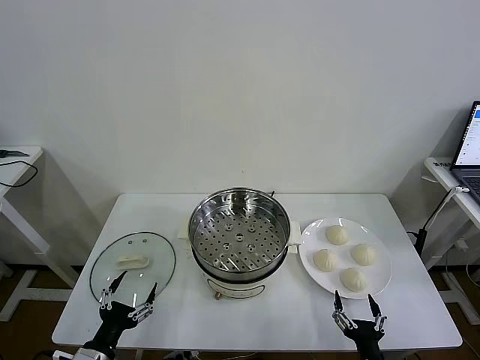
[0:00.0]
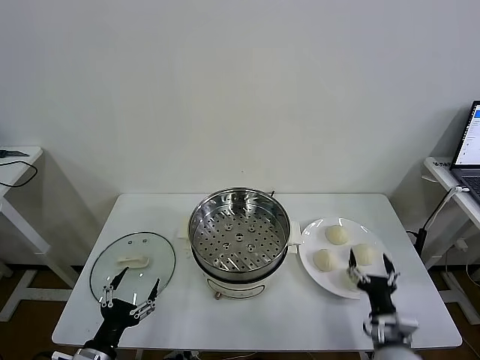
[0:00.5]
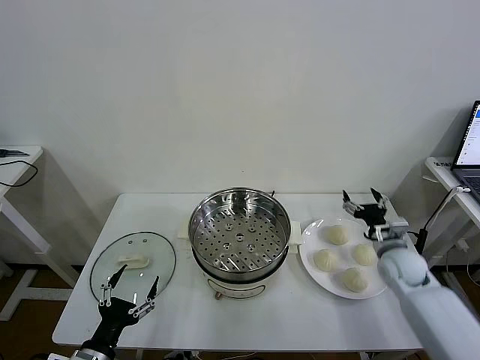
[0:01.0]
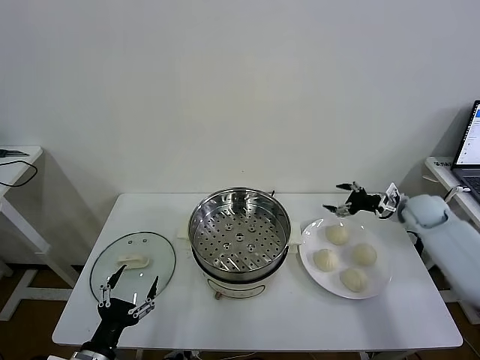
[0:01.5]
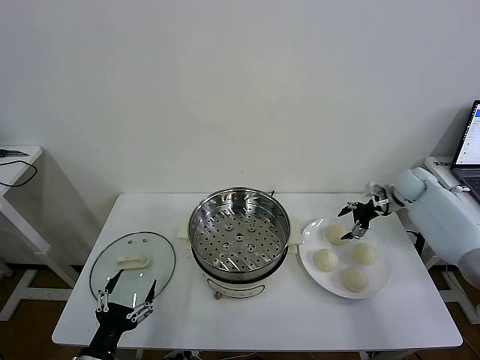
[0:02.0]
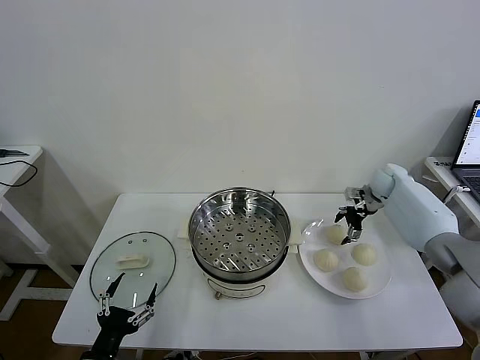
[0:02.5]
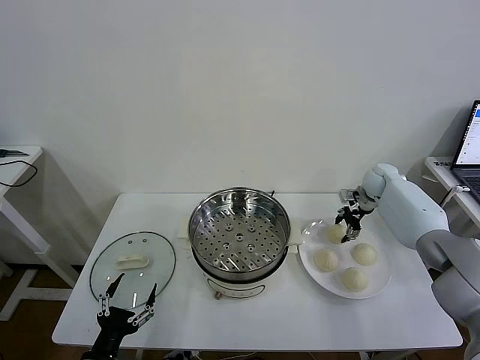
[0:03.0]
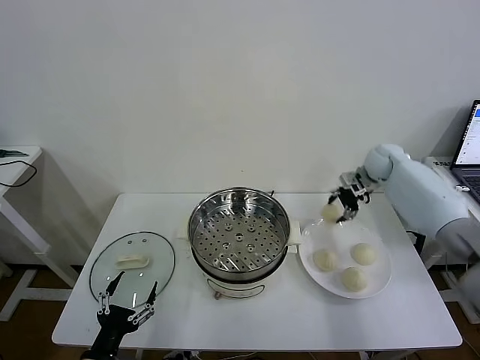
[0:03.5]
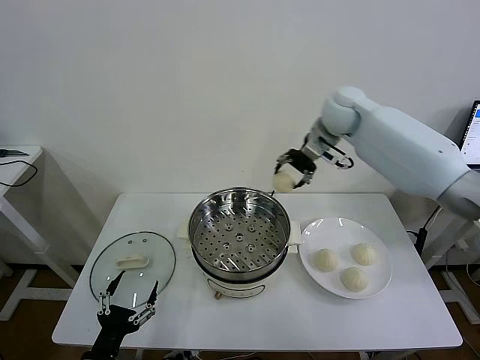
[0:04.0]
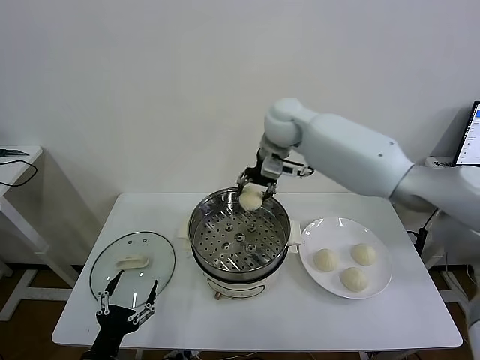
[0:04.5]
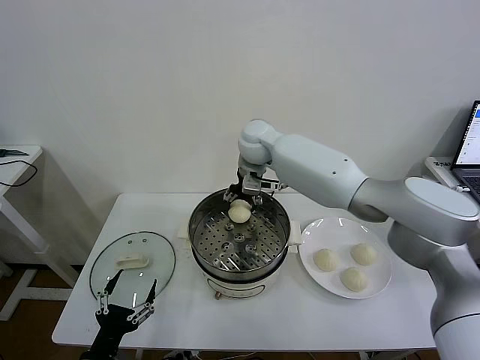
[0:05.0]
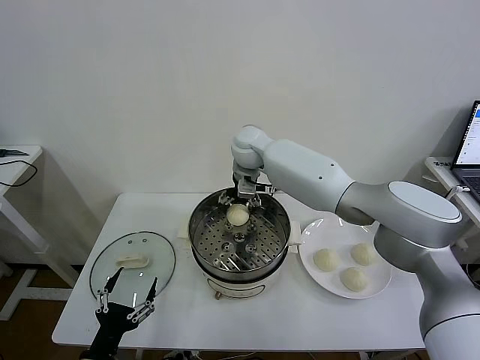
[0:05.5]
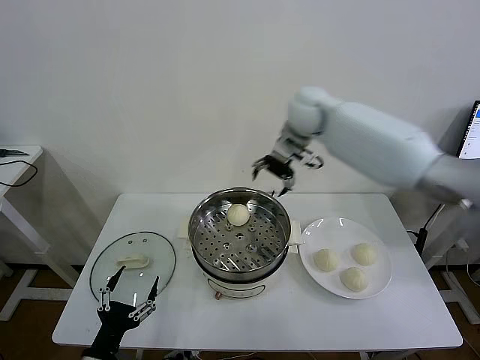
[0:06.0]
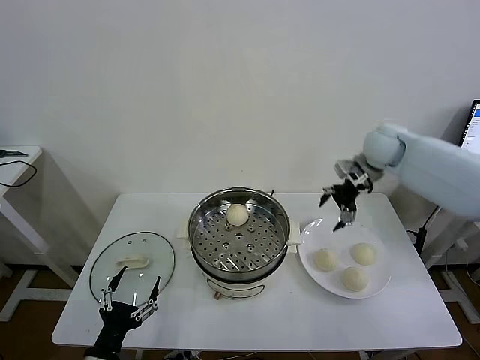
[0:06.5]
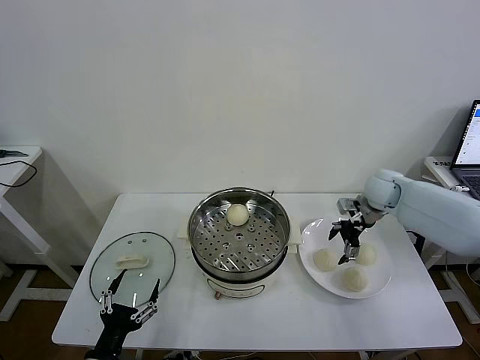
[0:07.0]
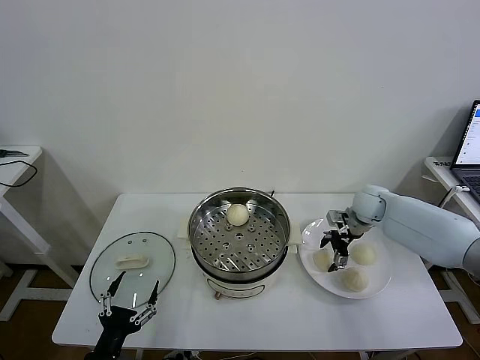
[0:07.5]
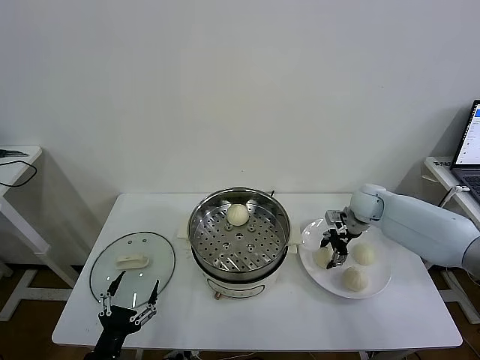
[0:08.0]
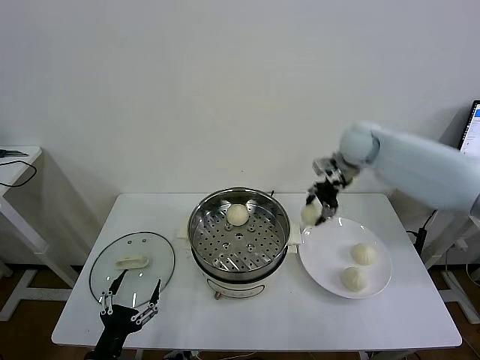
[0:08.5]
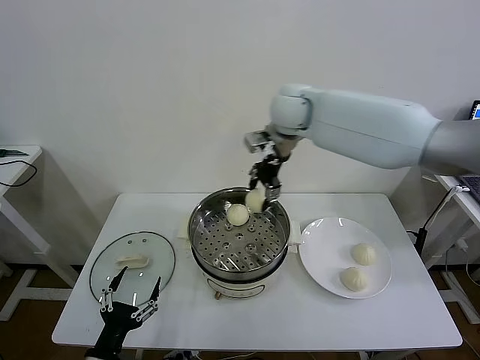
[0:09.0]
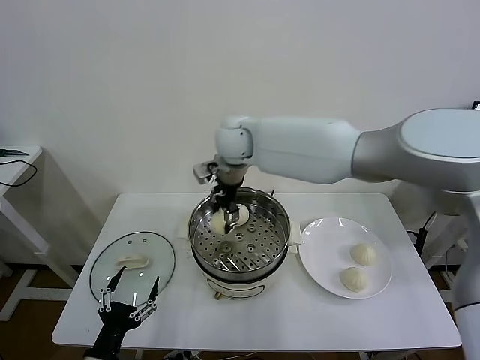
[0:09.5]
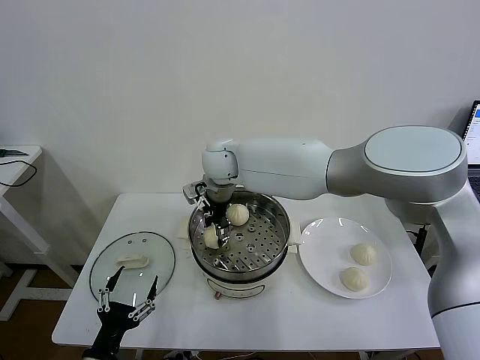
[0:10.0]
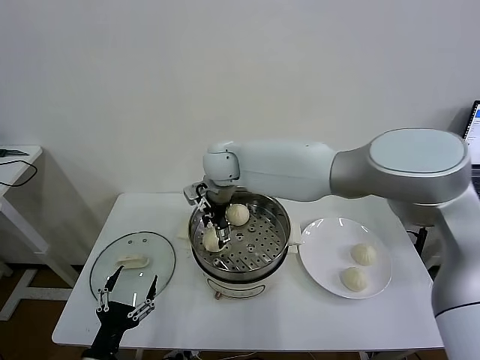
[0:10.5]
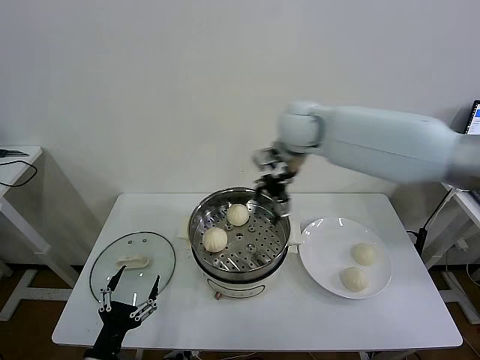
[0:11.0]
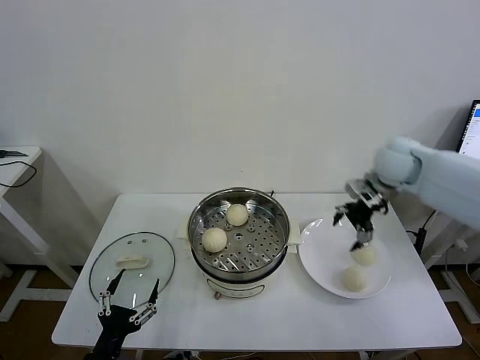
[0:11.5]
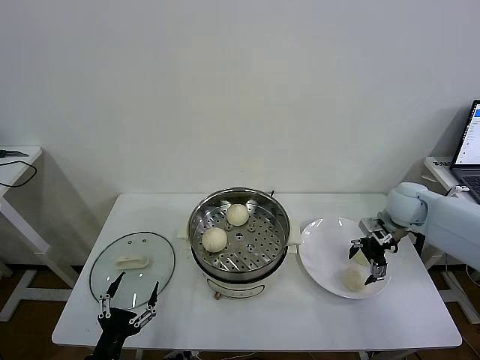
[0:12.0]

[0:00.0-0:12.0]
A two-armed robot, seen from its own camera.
Task of the whole recording: take steamed baozi put them in steamer then cover it.
Step, 0:00.0 to 0:02.5: Grasp the baozi in the plate with right gripper.
Step, 0:03.0 to 0:05.5: Place the baozi on the steamer with right gripper.
Step, 0:06.0 to 0:07.5: Grasp the baozi in the plate with right gripper.
Step, 0:08.0 to 0:10.5: Place the baozi on the steamer with right gripper.
0:02.0 to 0:04.0: The right gripper travels to the left and upward by roughly 35 cm, and closes.
0:04.0 to 0:06.0: The right gripper reaches approximately 15 cm to the left, then returns, and opens its fingers.
0:06.0 to 0:08.0: The right gripper heads downward and to the right, covering about 25 cm, and closes up.
0:08.0 to 0:10.0: The right gripper is displaced to the left by roughly 40 cm.
0:10.0 to 0:12.0: The right gripper goes about 40 cm to the right, and opens its fingers.

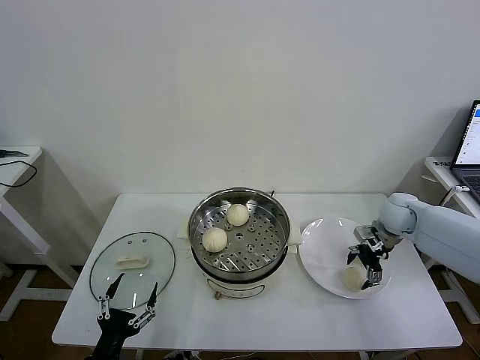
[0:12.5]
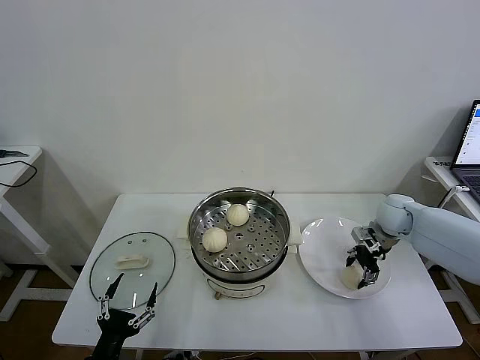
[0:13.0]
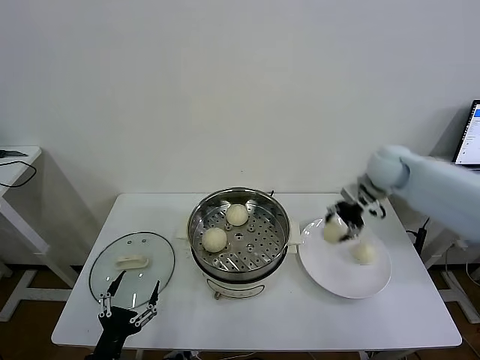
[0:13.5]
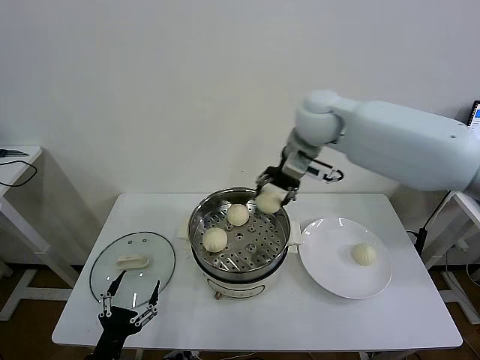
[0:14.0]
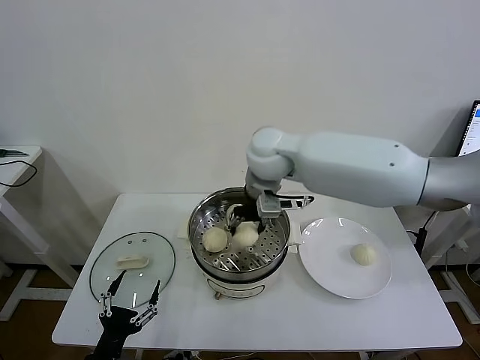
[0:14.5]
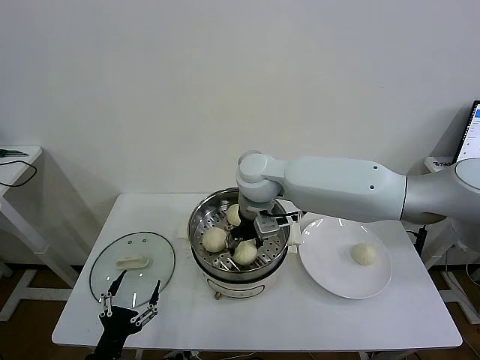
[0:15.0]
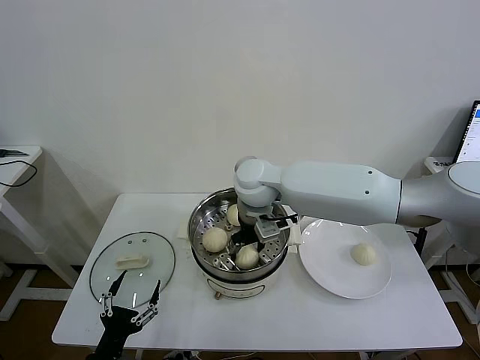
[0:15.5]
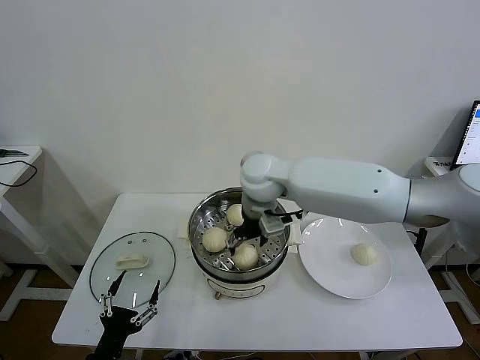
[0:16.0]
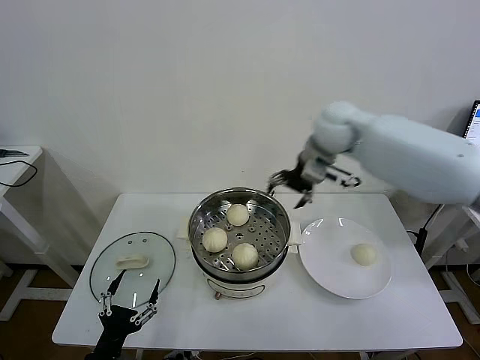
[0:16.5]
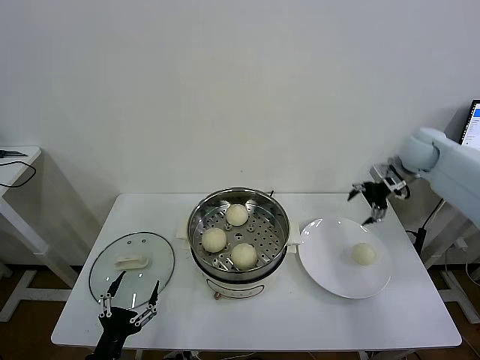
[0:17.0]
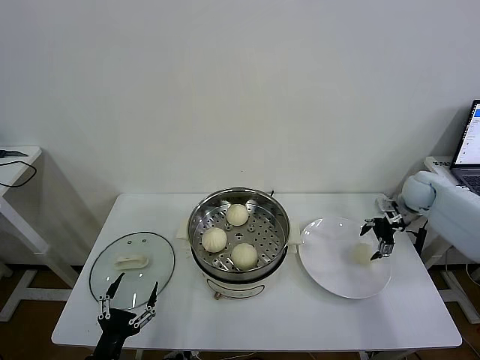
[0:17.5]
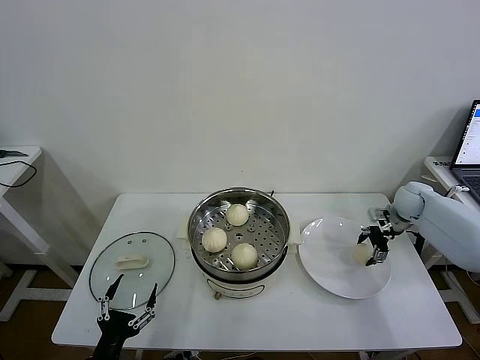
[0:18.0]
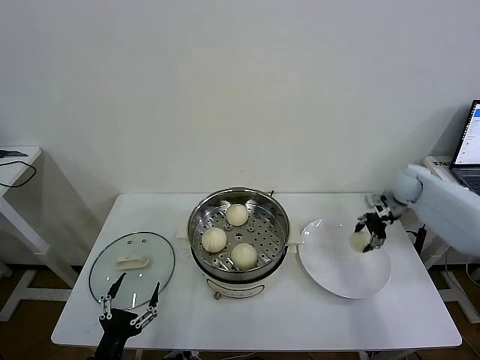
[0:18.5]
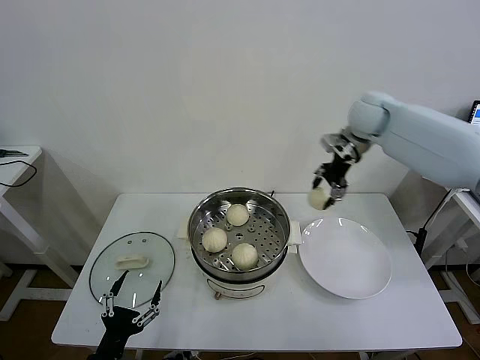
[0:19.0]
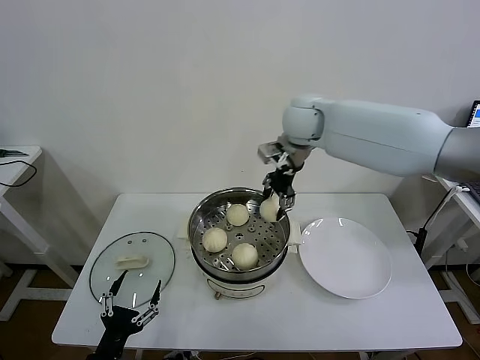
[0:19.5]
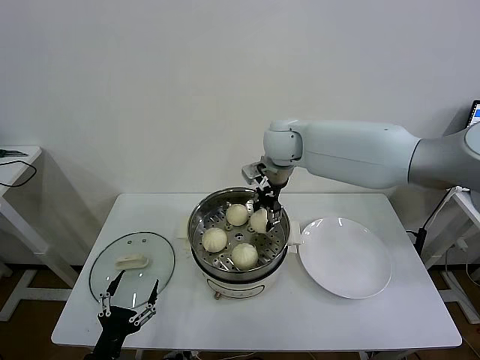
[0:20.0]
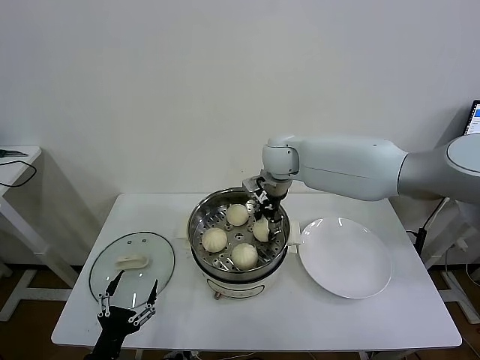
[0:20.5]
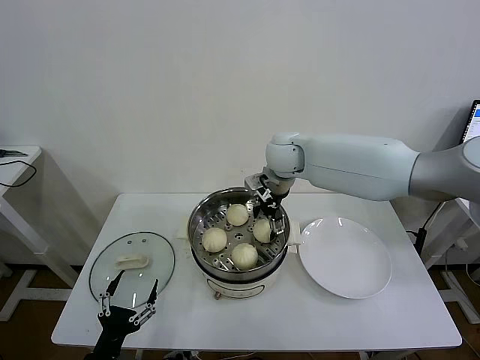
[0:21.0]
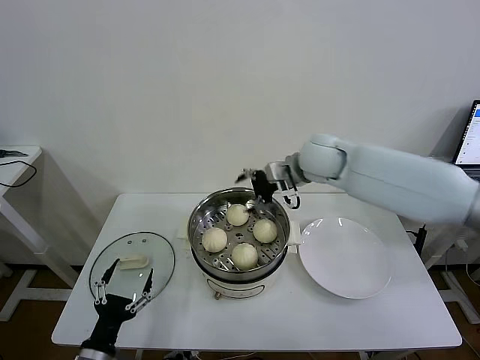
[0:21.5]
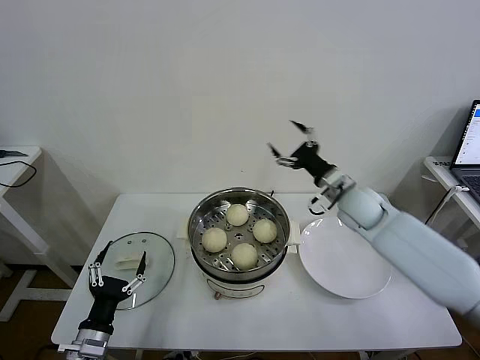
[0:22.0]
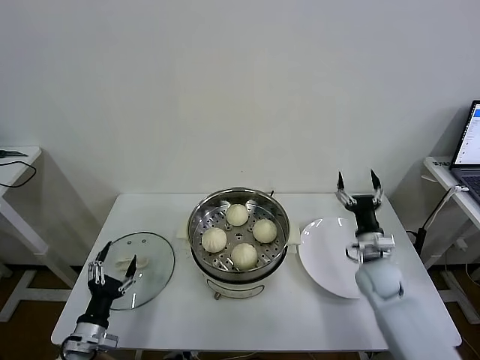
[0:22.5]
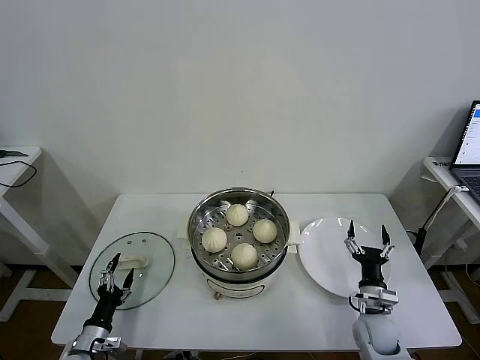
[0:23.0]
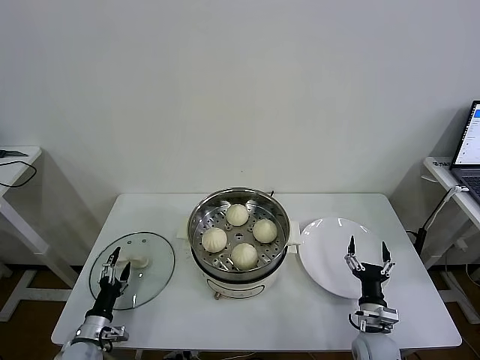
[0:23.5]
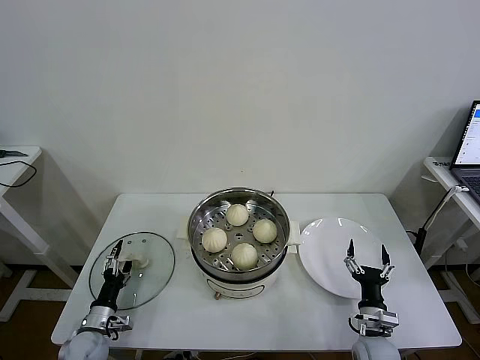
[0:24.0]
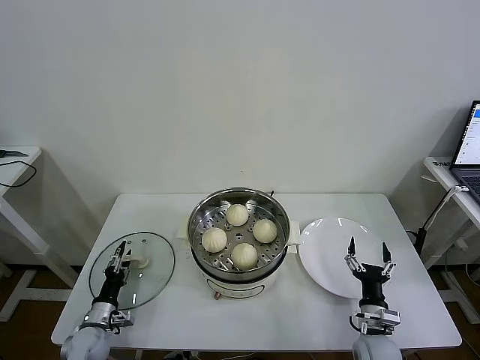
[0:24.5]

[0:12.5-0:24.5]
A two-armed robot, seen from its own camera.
Task of the whole recording: take steamed baozi put them in steamer then cover it.
Step, 0:13.5 to 0:16.0: Place the baozi on the steamer with right gripper.
Step, 0:16.5 to 0:18.0: Grasp the baozi in the plate with right gripper.
Step, 0:18.5 to 0:20.5: Place the baozi on the steamer with right gripper.
0:12.5 to 0:14.5: The right gripper goes roughly 40 cm to the left and upward, and closes up.
0:14.5 to 0:16.5: The right gripper heads to the right, covering approximately 15 cm, and opens.
0:16.5 to 0:18.5: The right gripper travels to the right and downward by about 30 cm, and closes.
0:18.5 to 0:20.5: The right gripper moves to the left, roughly 35 cm.
0:20.5 to 0:22.5: The left gripper travels forward and to the left by approximately 10 cm. The right gripper heads to the right, downward and backward, covering roughly 40 cm, and opens up.
0:22.5 to 0:24.5: The right gripper shifts roughly 20 cm backward and downward; the left gripper shifts about 10 cm downward and forward, and closes up.

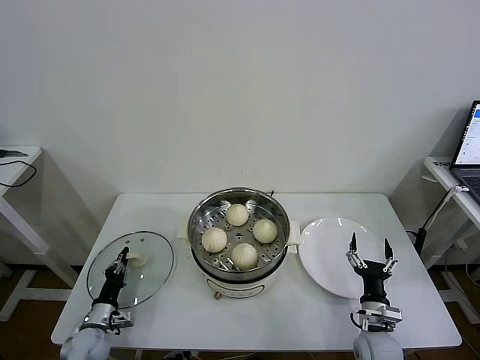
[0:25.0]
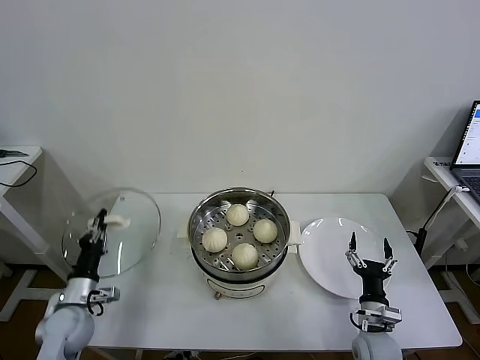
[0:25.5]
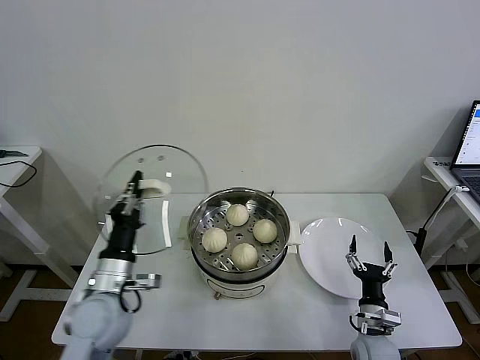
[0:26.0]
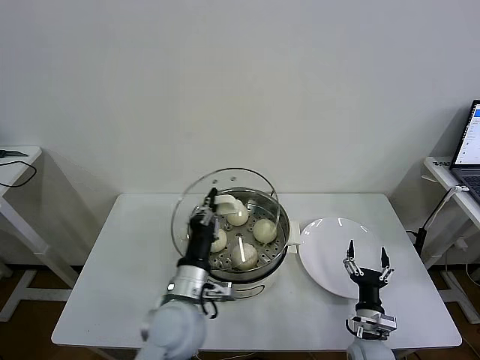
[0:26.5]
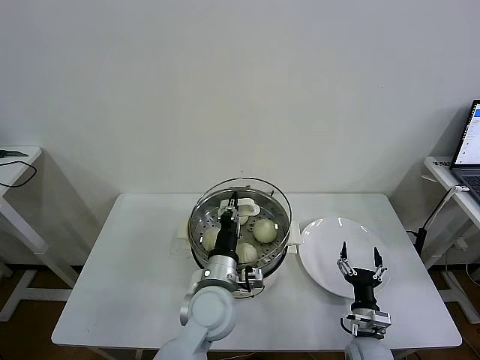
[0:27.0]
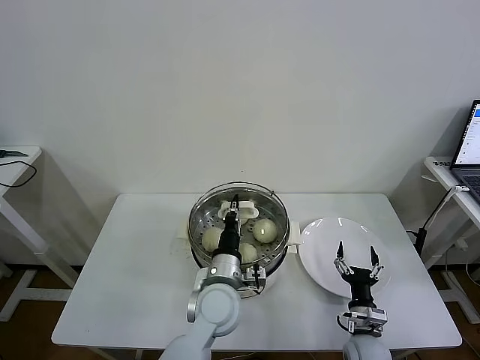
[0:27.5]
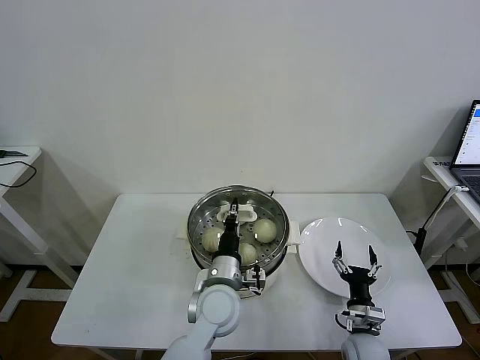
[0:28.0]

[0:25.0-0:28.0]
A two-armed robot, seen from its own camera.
Task of the whole recording: take steamed baozi put them in steamer then cover it.
0:25.0 to 0:26.5: The left gripper travels to the right and upward by some 35 cm.
0:26.5 to 0:28.0: The left gripper heads to the right, covering some 10 cm.
